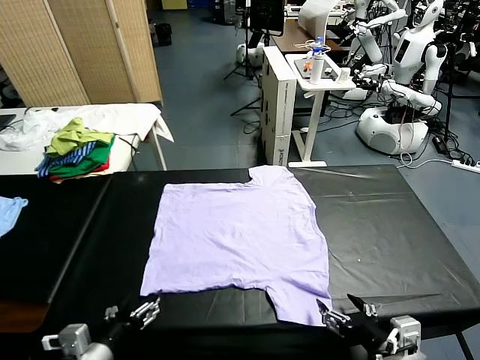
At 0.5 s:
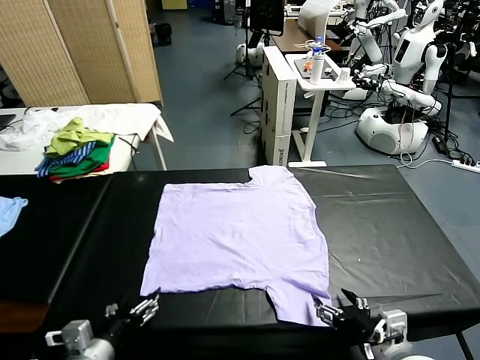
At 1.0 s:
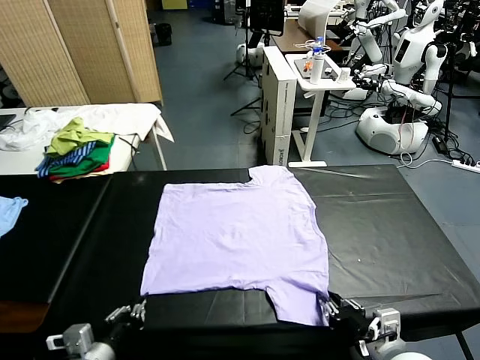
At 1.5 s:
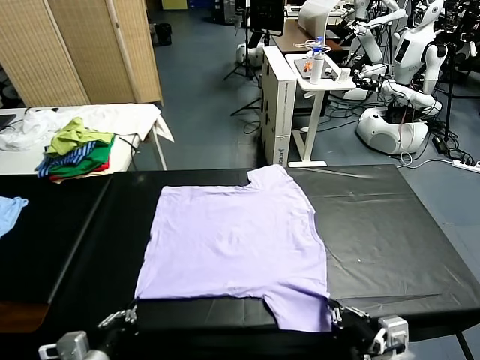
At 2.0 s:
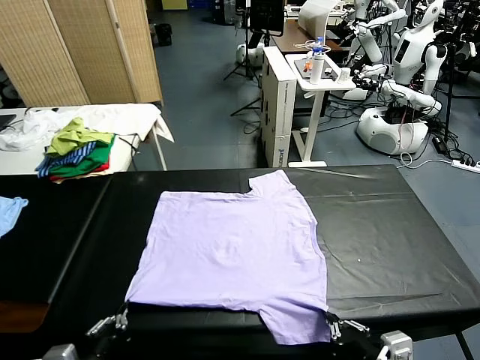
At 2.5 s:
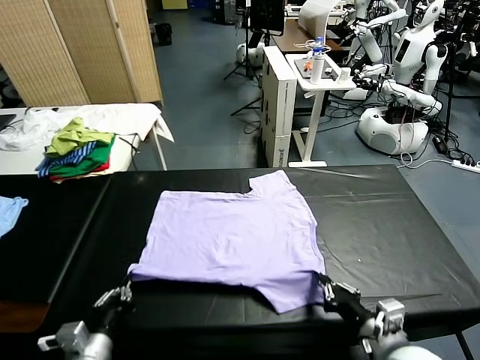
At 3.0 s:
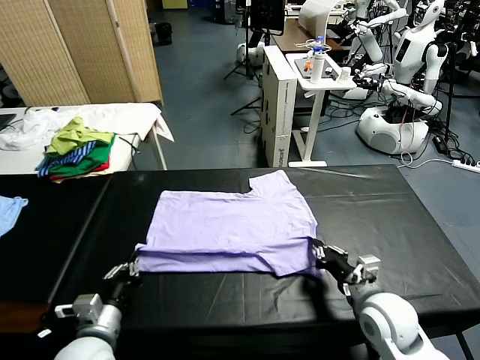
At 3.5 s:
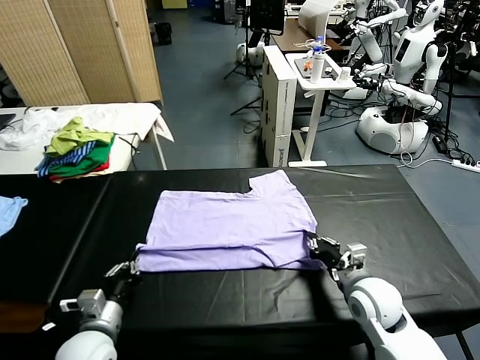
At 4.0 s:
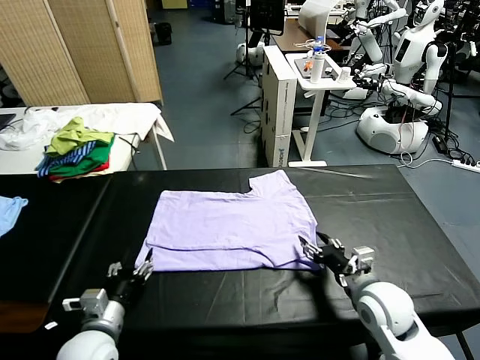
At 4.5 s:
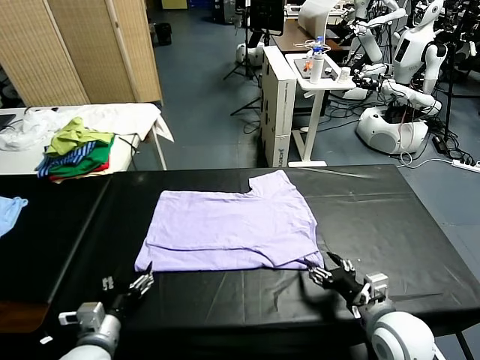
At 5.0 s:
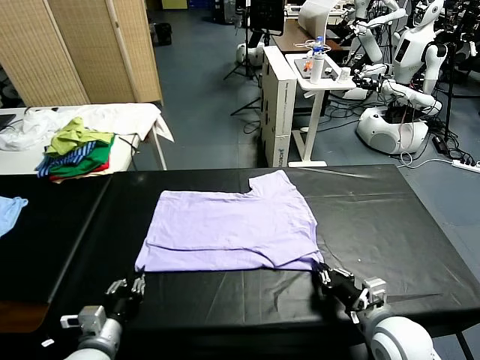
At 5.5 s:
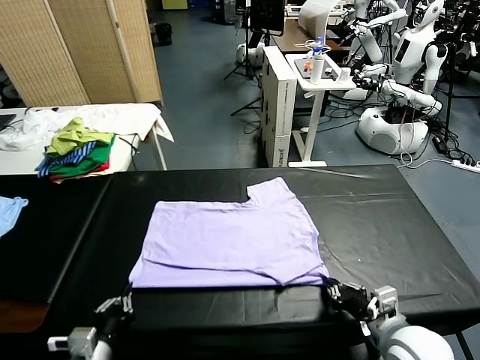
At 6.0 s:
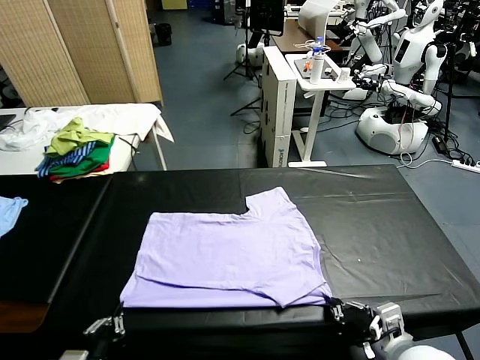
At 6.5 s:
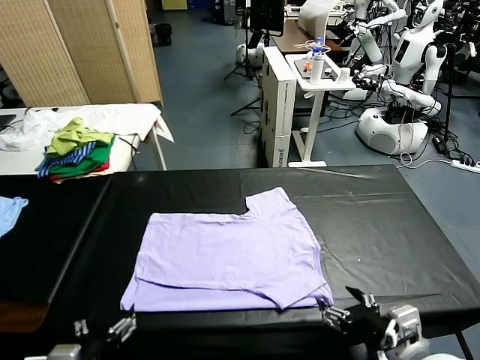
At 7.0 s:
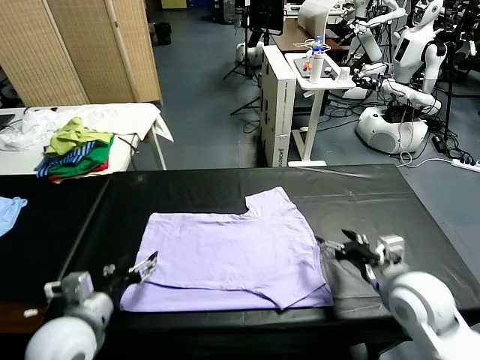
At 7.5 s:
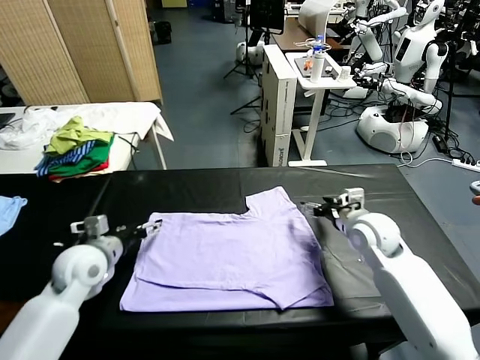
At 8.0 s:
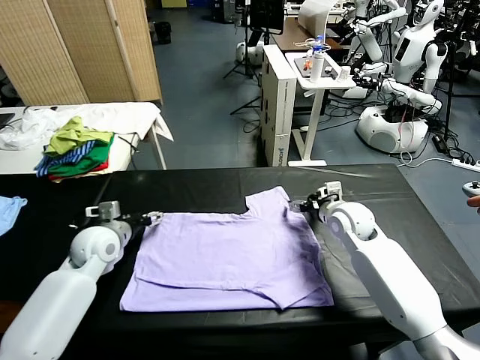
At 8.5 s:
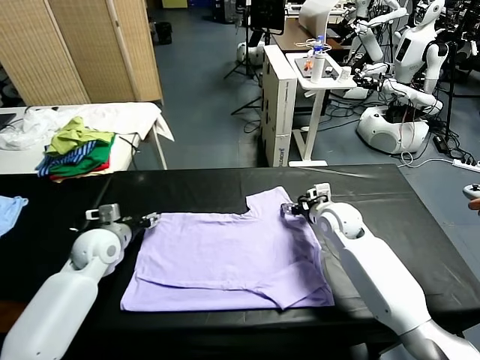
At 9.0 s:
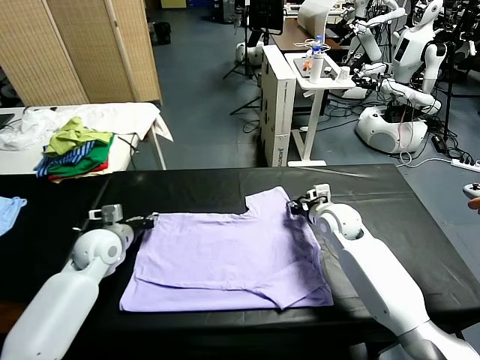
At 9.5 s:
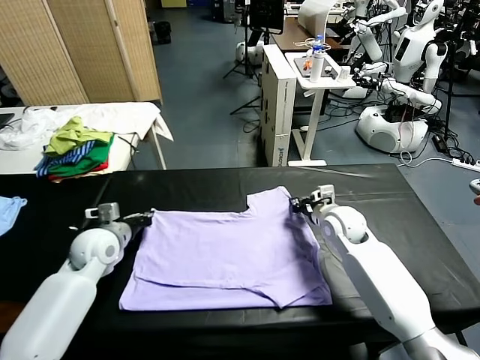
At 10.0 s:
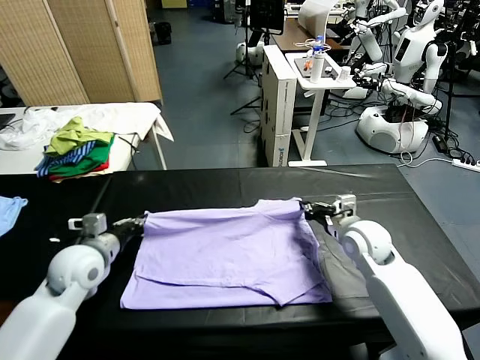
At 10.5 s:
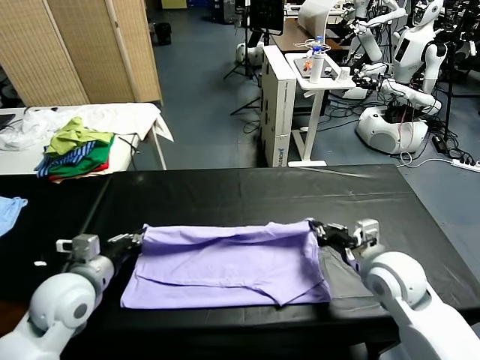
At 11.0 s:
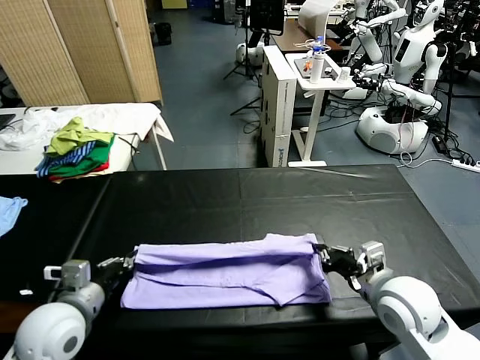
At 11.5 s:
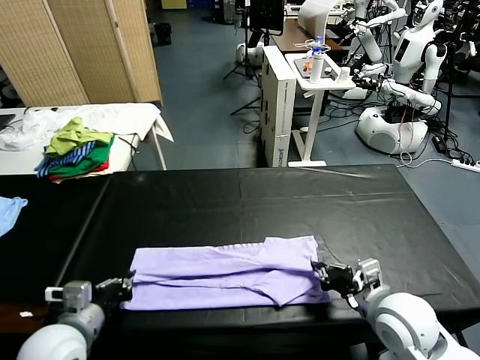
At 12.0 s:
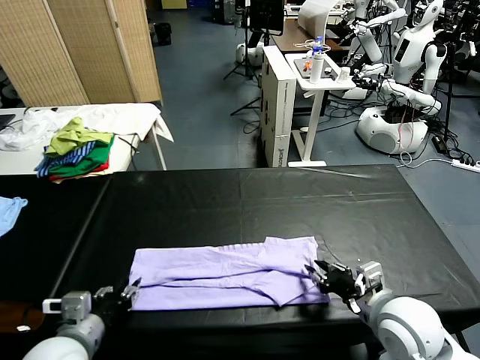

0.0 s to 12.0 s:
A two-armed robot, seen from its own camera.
Task of the whole recording: fold and organize the clothes.
Step, 0.0 to 1.5 s: use both grippers simultaneously to clamp the lower edge of the clothing fabric.
Step, 2.0 to 4.0 s: use both grippers to drag the lower edge of the fabric forward and fold it over the upper edge.
Step, 4.5 to 6.0 s: Drag the clothes downward with both gripper.
Step, 6.5 to 9.5 s: use both grippers simultaneously to clamp the upper edge of the clothing fabric.
Step, 10.0 to 12.0 s: use both grippers to drag the upper edge of the fabric backward and fold it over the lower edge.
2.0 to 4.0 s: The two grippers go roughly 10 cm forward. The right gripper opens its fingers. Meanwhile the left gripper opens its fingers.
4.0 to 6.0 s: Both grippers travel together backward, approximately 10 cm. The left gripper closes; the right gripper closes up.
6.0 to 8.0 s: The grippers both shift forward by roughly 35 cm. The left gripper opens its fingers.
8.0 to 10.0 s: The grippers both shift backward by some 10 cm. The left gripper closes its fingers. The right gripper closes up.
10.0 to 12.0 s: Both grippers travel together backward, roughly 15 cm. The left gripper opens its fingers. Meanwhile the right gripper opens its fingers.

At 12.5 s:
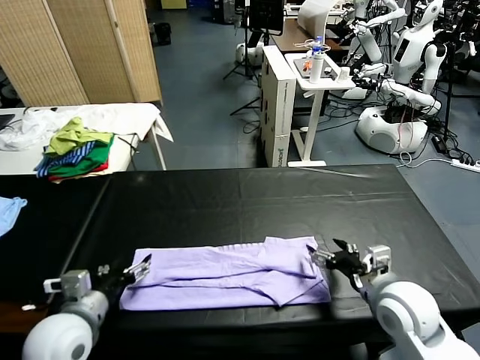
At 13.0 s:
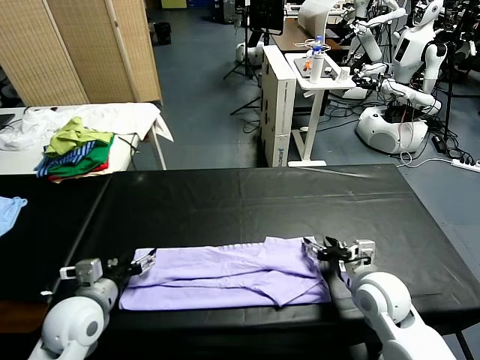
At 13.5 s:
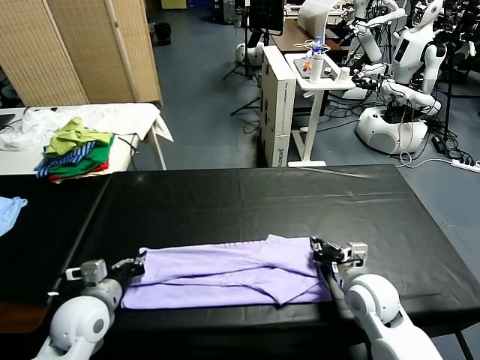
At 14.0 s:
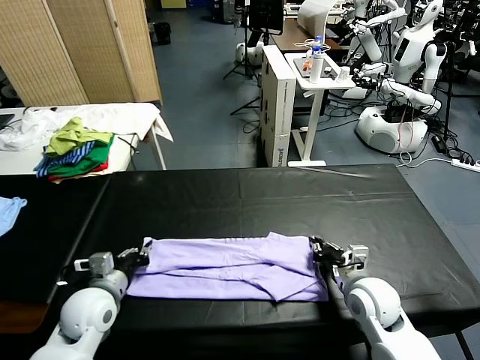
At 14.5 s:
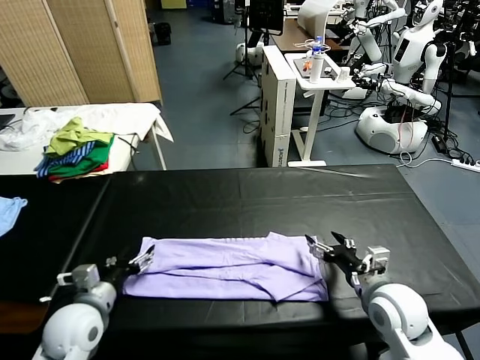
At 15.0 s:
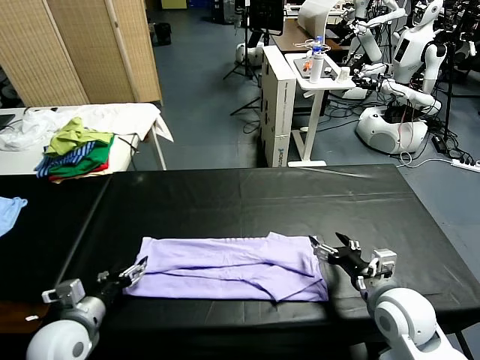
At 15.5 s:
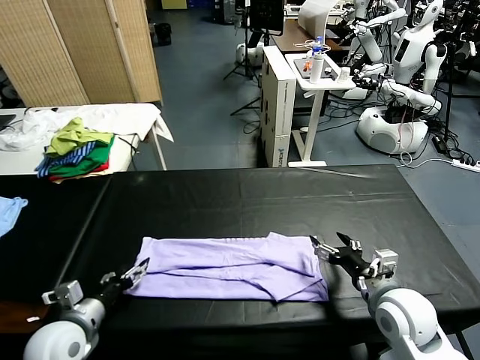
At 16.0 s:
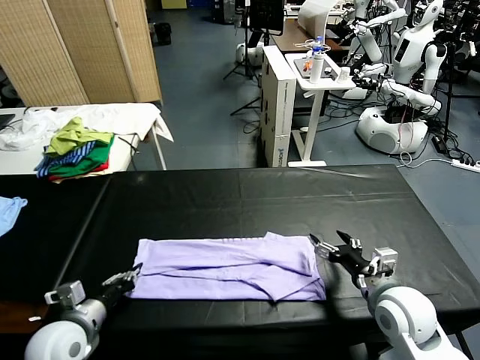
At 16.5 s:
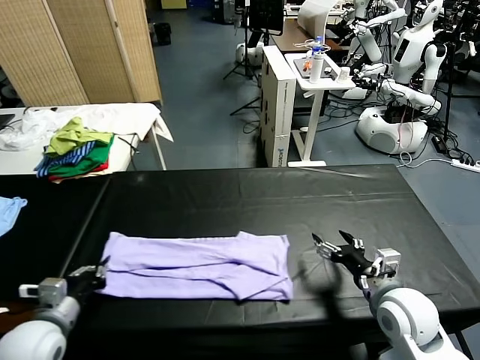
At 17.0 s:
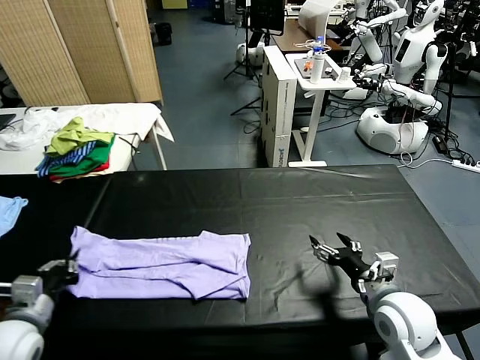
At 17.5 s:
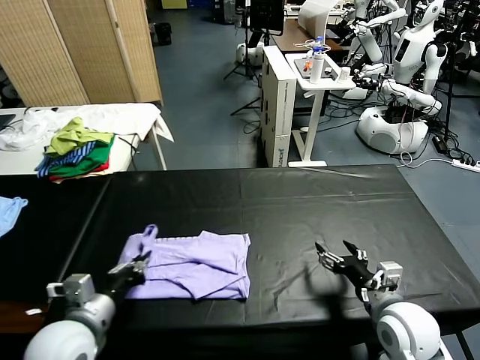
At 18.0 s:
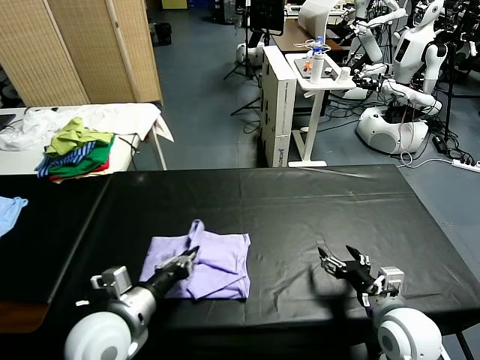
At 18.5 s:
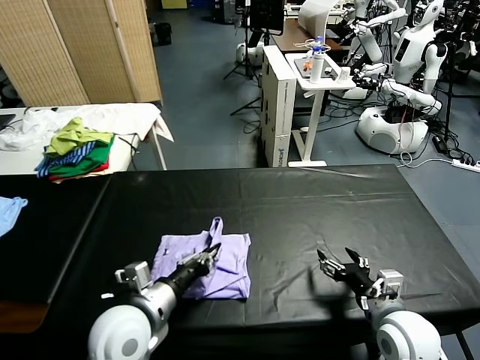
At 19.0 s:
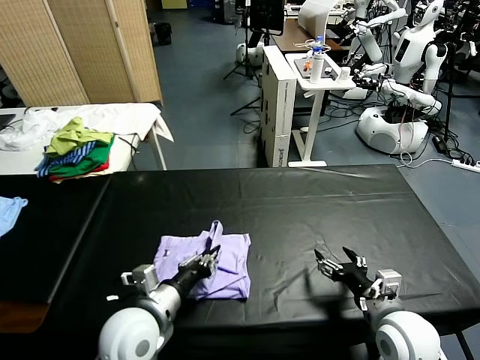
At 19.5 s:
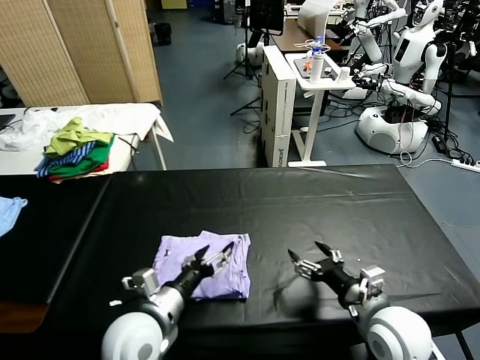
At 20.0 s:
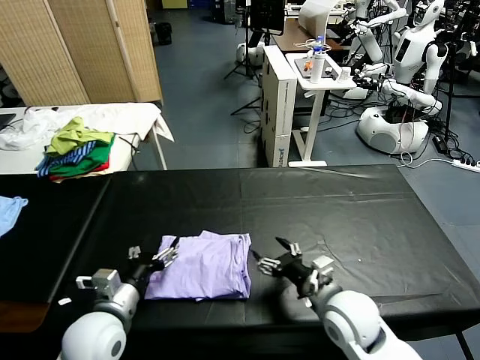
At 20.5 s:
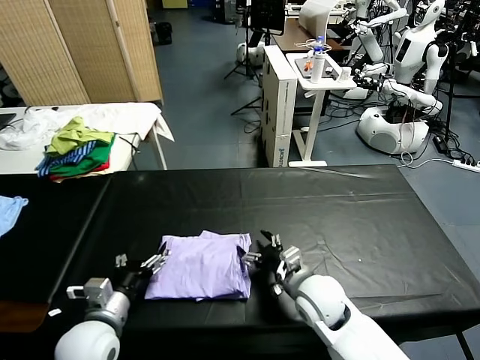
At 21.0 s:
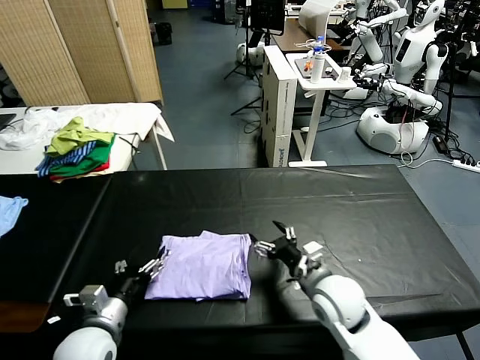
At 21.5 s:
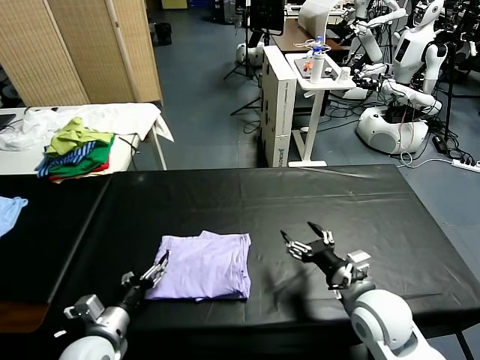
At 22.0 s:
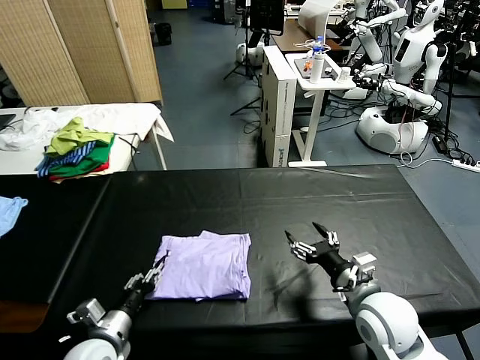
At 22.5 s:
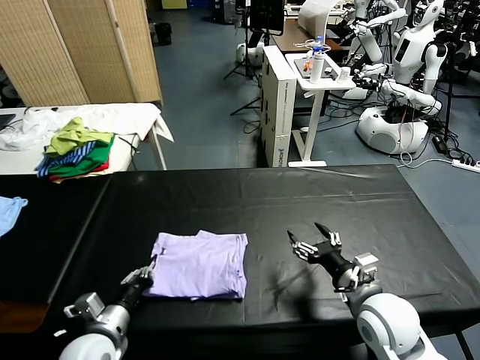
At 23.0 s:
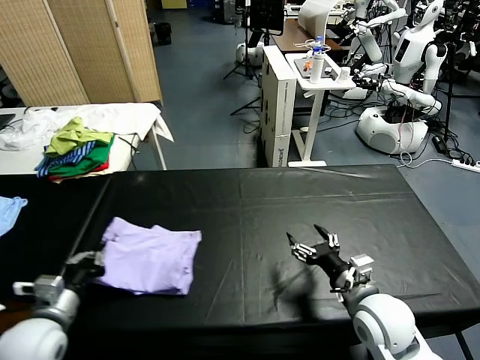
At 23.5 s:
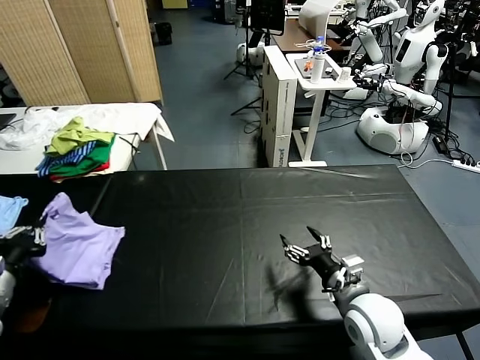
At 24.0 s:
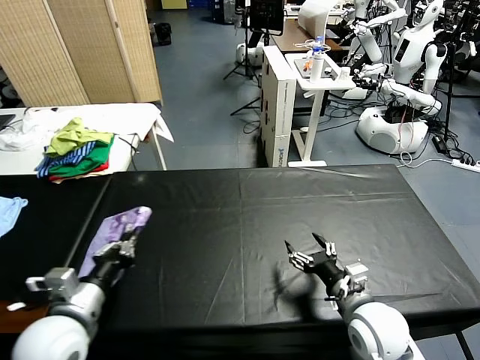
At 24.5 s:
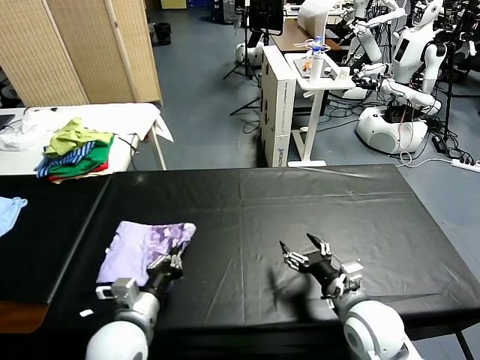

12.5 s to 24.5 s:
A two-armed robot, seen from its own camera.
Task of the whole recording: fold and organize the clothes.
Step, 12.5 to 16.0 s: use the left gripper to clamp the left edge of the fabric.
Step, 16.5 to 19.0 s: use the left gripper to drag the left edge of the fabric to the left and folds it over the right edge.
12.5 to 14.5 s: The right gripper closes and opens again. The left gripper is displaced downward by some 5 cm, and closes and opens again.
14.5 to 16.5 s: The left gripper travels to the left by roughly 5 cm, and closes its fingers.
16.5 to 18.5 s: The left gripper goes some 15 cm to the right.
18.5 to 20.5 s: The right gripper shifts about 15 cm to the left and forward. Meanwhile the left gripper moves to the left, roughly 5 cm, and opens its fingers.
20.5 to 22.5 s: The left gripper closes its fingers. Meanwhile the right gripper goes roughly 15 cm to the right, backward and upward.
22.5 to 24.5 s: The left gripper goes some 5 cm upward, and reaches approximately 15 cm to the left, then returns.

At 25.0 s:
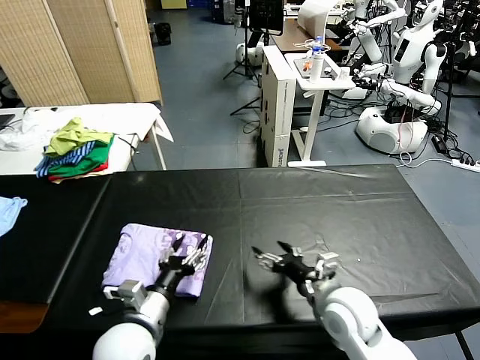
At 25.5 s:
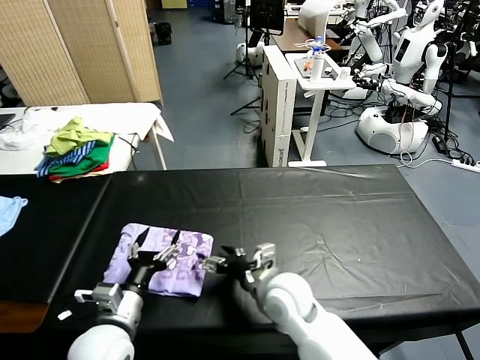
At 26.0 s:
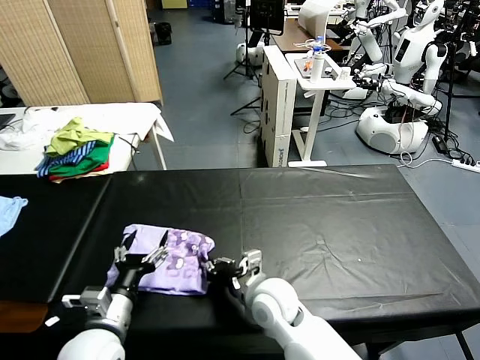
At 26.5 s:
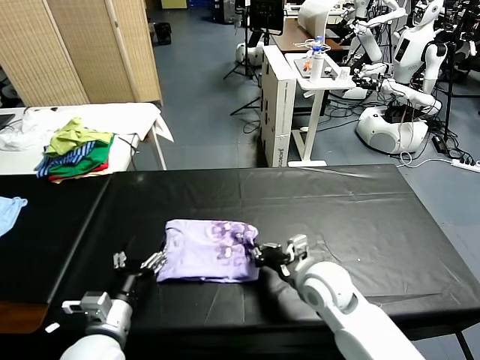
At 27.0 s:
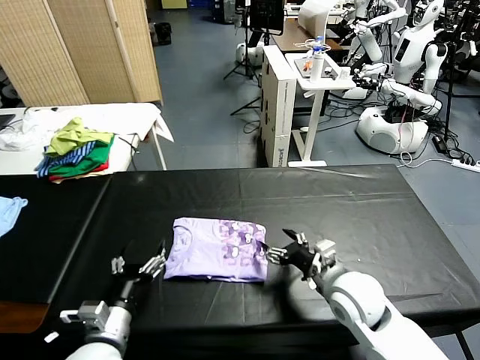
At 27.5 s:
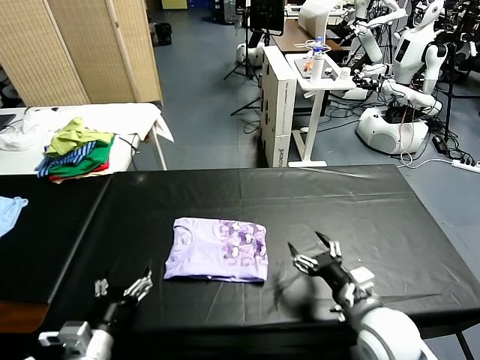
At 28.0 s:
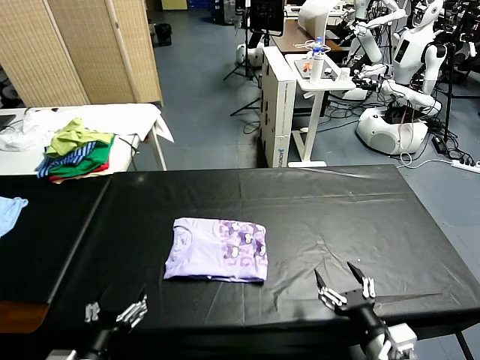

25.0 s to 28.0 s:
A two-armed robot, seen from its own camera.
Task of the whole recording: fold and organize the clothes.
Step, 25.0 to 26.5 s: Drag the clothes to the center of the table.
25.0 to 26.5 s: The left gripper travels to the left by roughly 5 cm, and opens up. Meanwhile the right gripper goes approximately 5 cm forward, goes to the left and returns, approximately 15 cm each way, and closes its fingers.
26.5 to 28.0 s: The right gripper heads backward and to the right, covering roughly 20 cm, and opens up, while the left gripper travels backward by roughly 10 cm.
